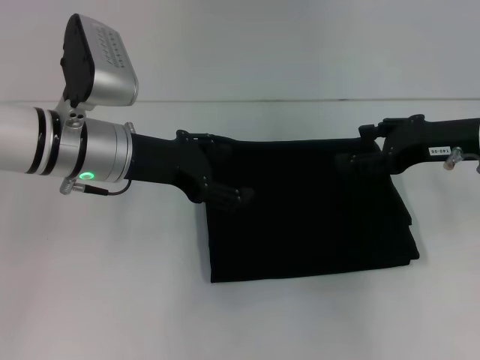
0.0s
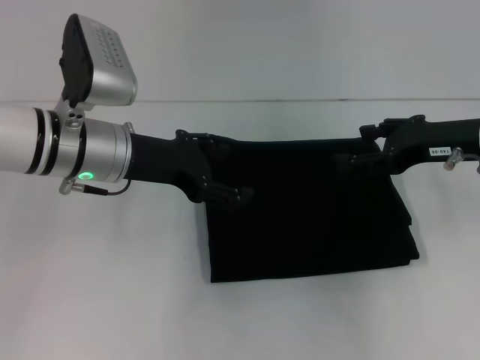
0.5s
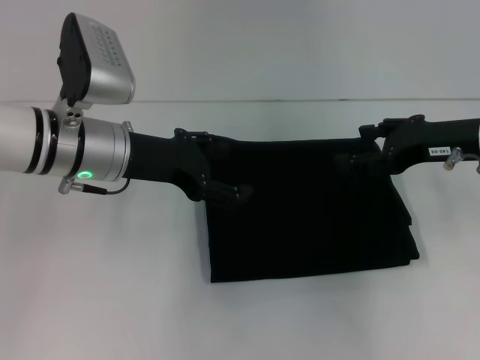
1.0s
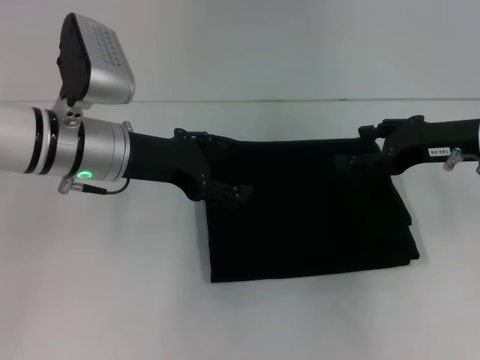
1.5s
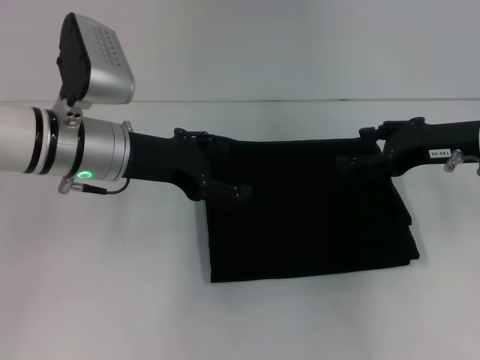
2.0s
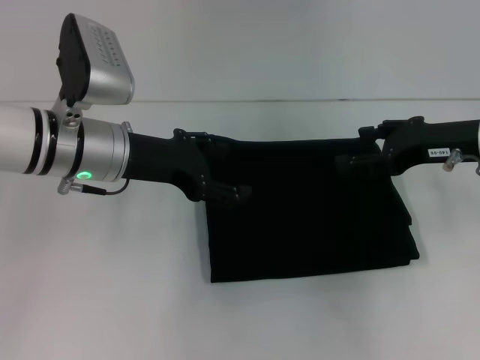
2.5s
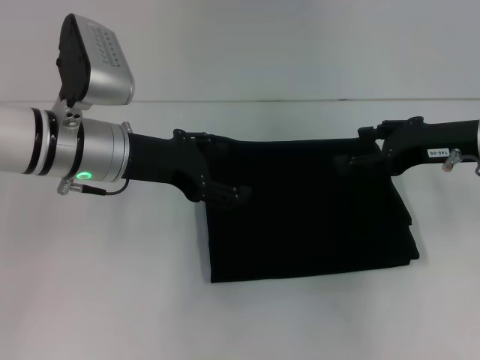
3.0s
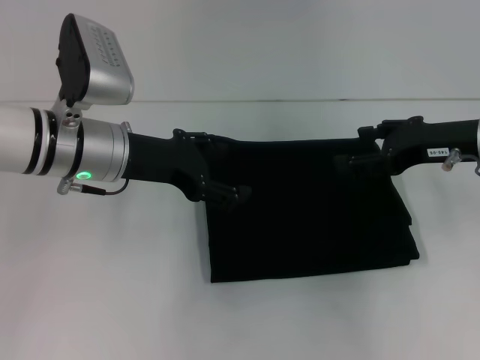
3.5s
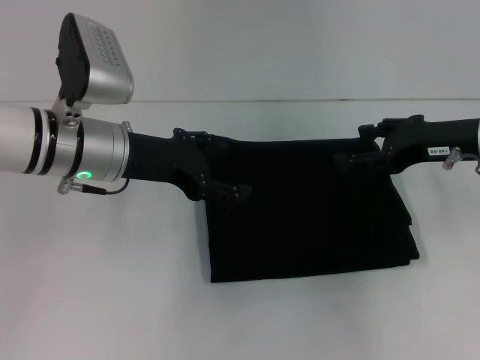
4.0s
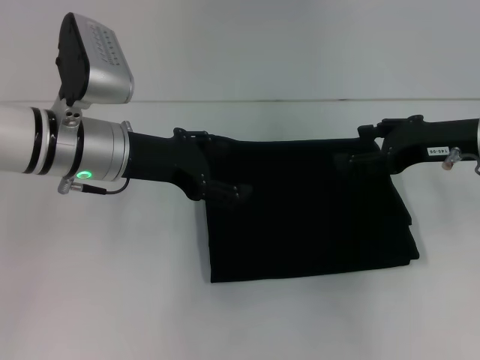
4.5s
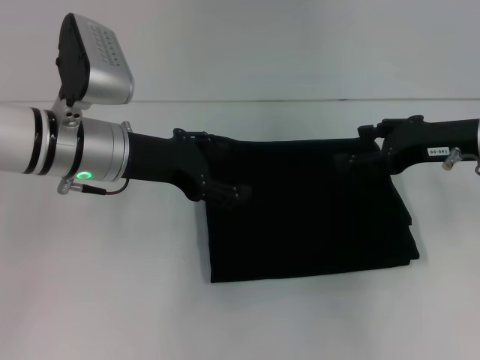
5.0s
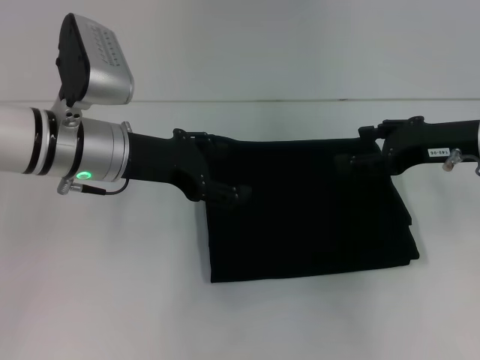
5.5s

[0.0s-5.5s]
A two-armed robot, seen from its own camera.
0.0s to 5.5s: Both grippers stay put.
